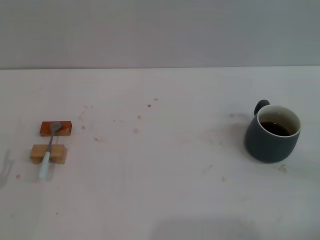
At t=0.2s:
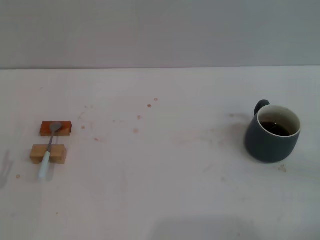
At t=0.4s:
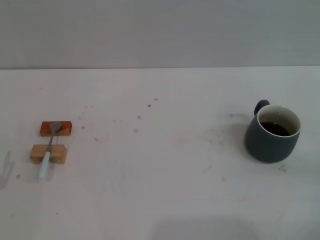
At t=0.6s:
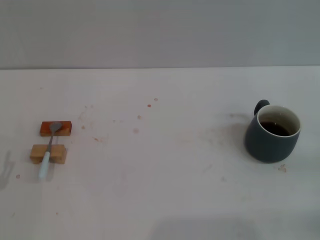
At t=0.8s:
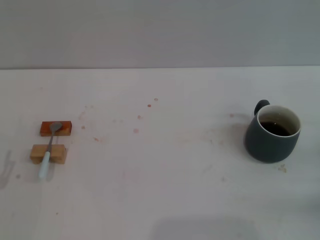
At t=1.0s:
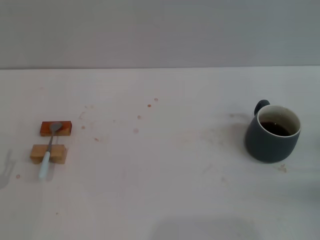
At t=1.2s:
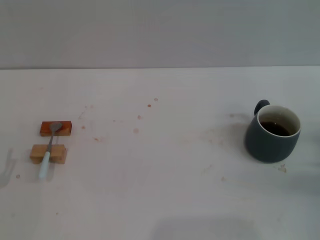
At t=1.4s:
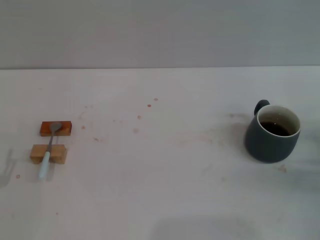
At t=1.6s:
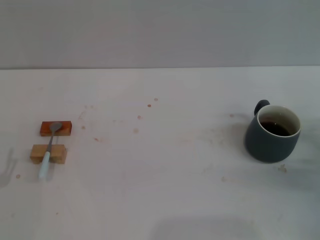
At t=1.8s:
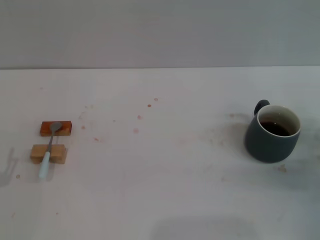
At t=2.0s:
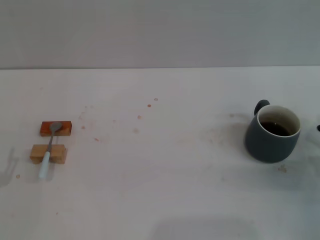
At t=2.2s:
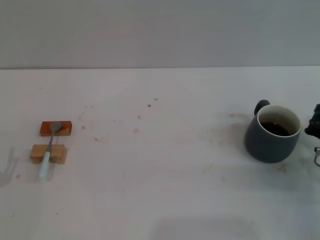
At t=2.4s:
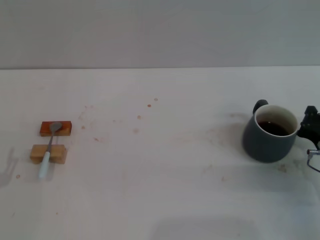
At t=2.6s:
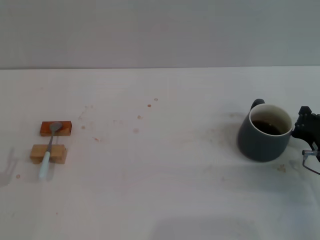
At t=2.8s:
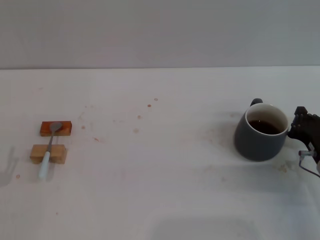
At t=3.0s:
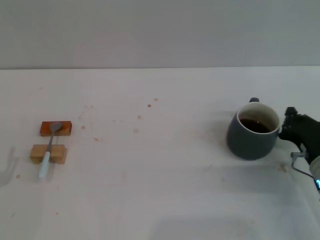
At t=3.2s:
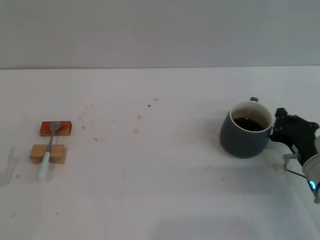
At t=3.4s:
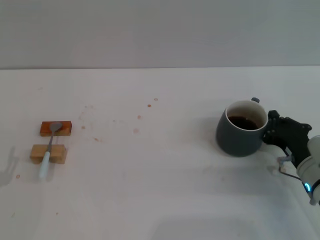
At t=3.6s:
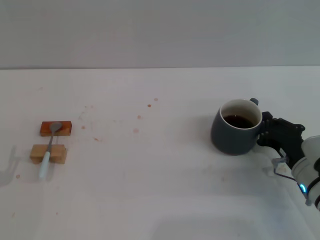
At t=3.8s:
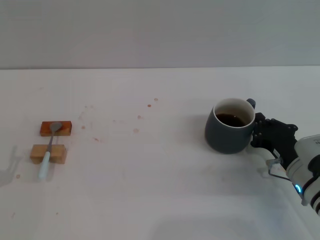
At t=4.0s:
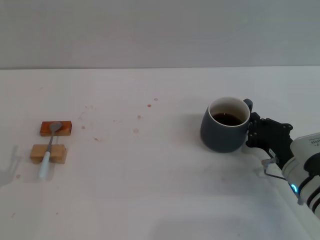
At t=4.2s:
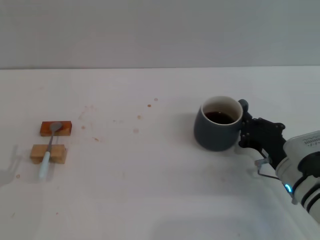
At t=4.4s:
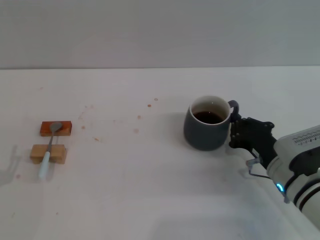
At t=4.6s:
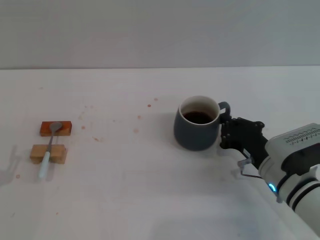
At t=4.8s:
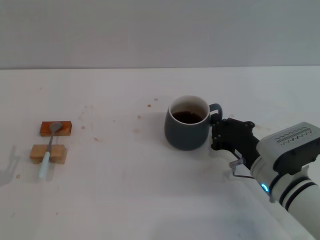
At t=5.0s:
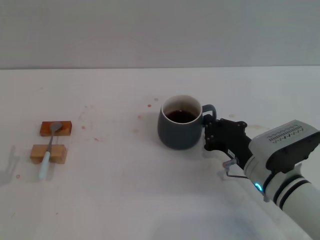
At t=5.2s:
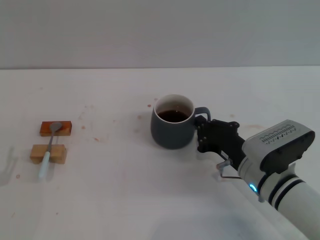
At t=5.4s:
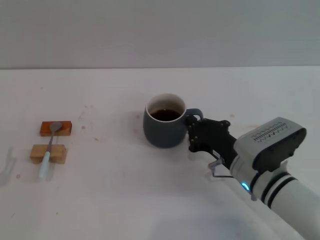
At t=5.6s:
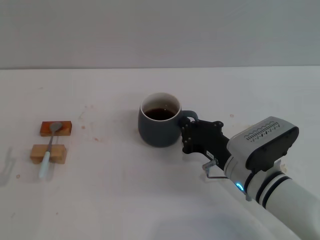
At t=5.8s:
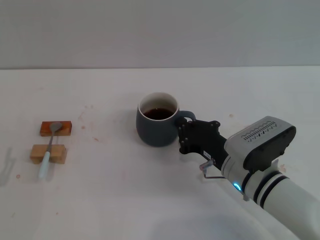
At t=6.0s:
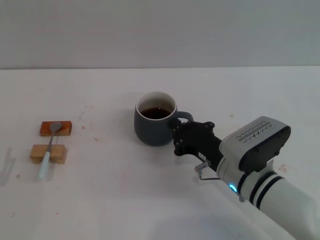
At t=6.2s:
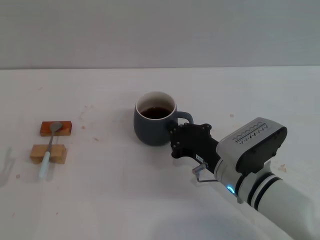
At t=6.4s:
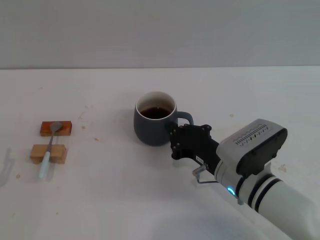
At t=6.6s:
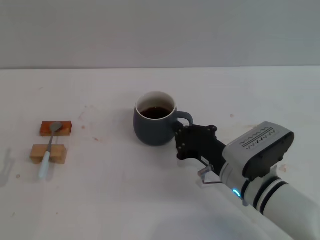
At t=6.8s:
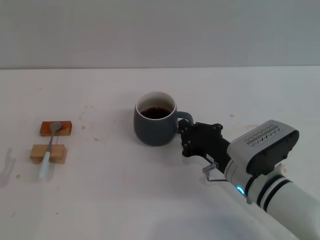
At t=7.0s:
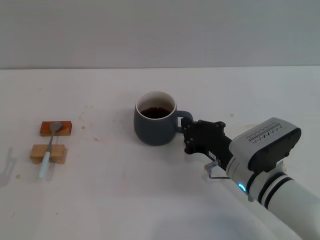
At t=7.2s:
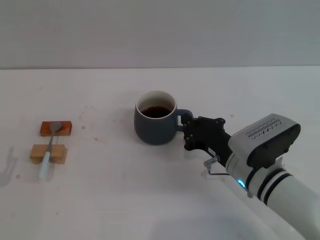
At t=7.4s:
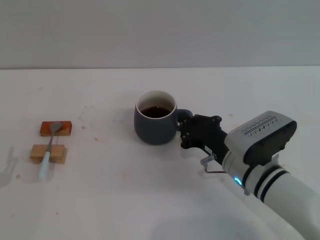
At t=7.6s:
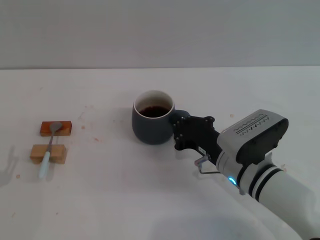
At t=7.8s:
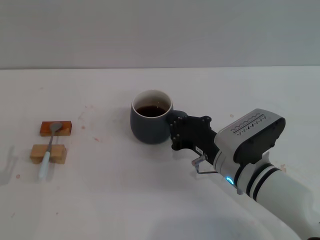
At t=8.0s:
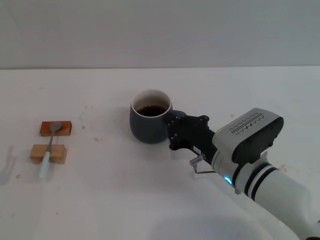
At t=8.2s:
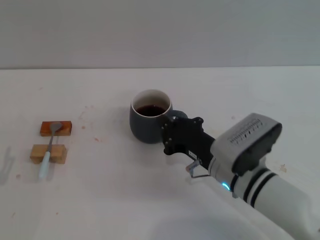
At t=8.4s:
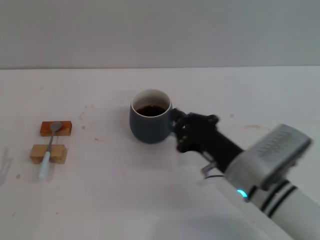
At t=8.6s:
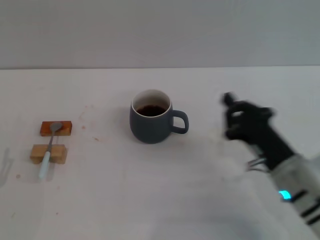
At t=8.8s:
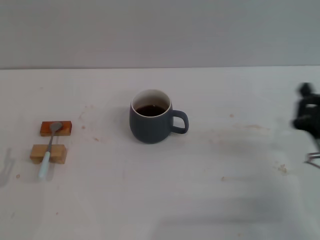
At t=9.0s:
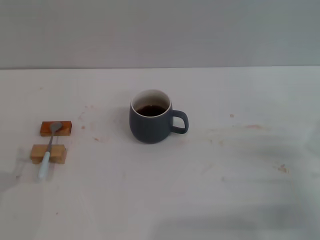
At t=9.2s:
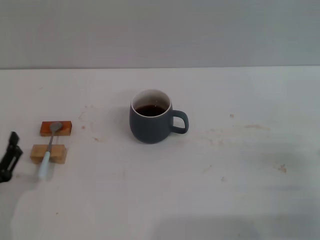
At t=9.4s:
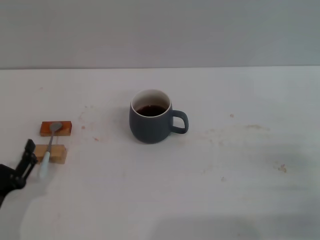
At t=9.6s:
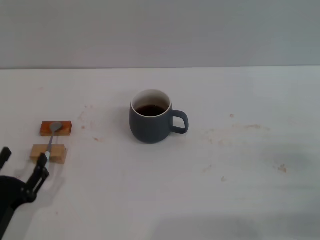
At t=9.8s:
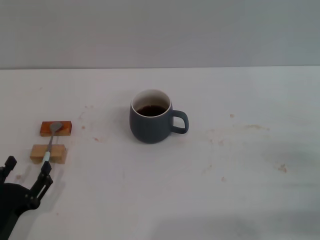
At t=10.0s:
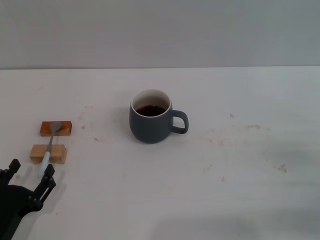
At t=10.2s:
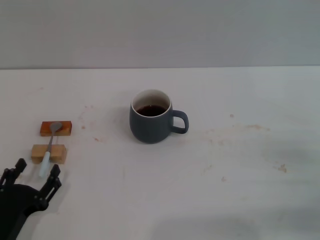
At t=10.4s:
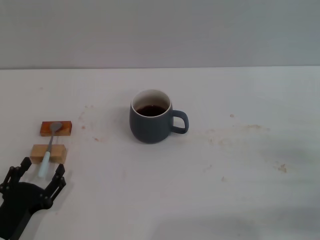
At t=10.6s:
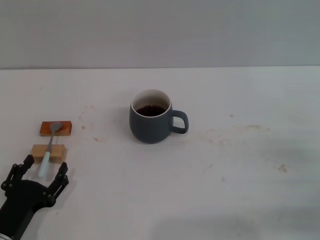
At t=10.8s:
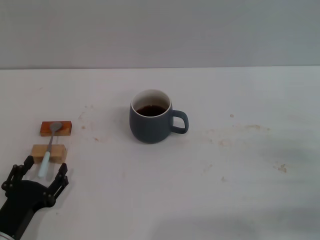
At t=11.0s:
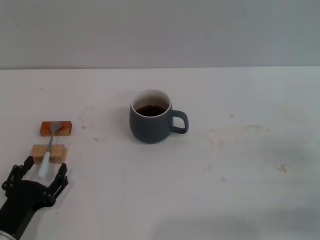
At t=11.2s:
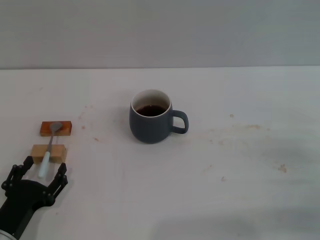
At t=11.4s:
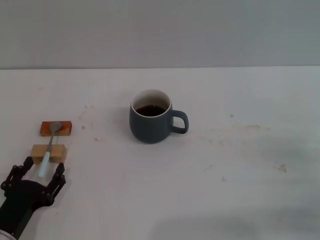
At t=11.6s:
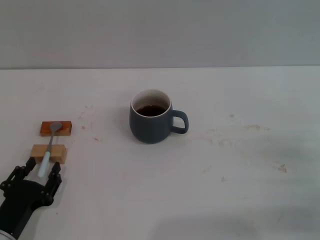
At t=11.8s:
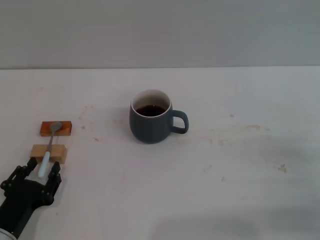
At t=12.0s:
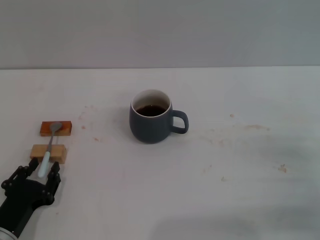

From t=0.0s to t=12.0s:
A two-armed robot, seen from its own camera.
Task of the whole recording: Move the grey cup to the center, lift the blue spoon, stir it three times in the cup, and put the spoon into the cup.
Step, from t=0.0s to t=8.4s: Move the cup with coffee to the center of view with the right gripper.
From t=0.0s to t=1.6s: The right gripper moves forward, some 10 cm.
From t=1.6s to t=3.0s: The right gripper travels to the left by roughly 5 cm.
From t=3.0s to t=4.4s: The right gripper shifts about 5 cm to the left.
From t=4.4s to t=6.0s: The right gripper shifts some 5 cm to the left.
From t=6.0s to t=7.6s: The grippers make only small movements.
From t=7.6s to t=9.0s: The right gripper shifts about 15 cm to the right.
From t=9.0s to t=10.4s: The left gripper changes place by approximately 5 cm.
From t=10.4s to t=12.0s: The grippers stay close to where they were, moving slightly.

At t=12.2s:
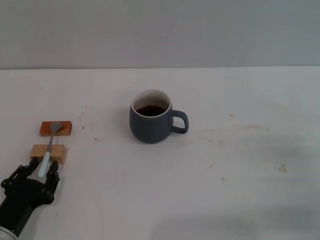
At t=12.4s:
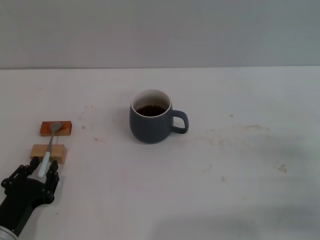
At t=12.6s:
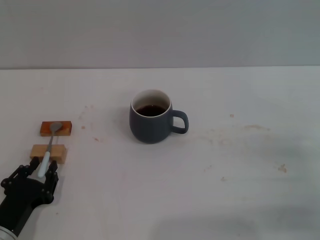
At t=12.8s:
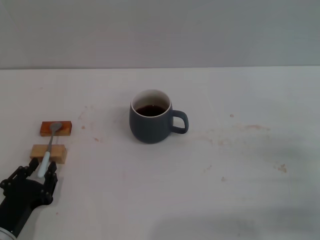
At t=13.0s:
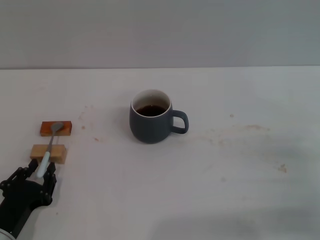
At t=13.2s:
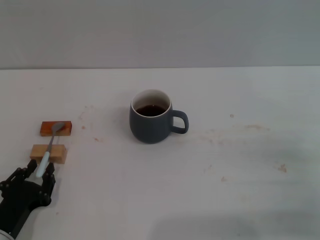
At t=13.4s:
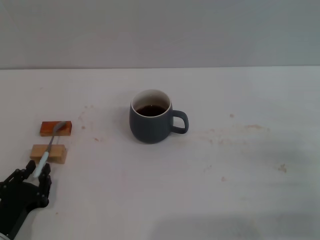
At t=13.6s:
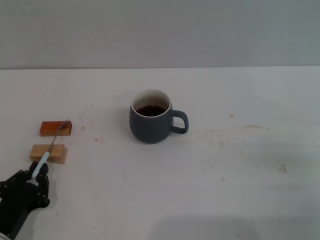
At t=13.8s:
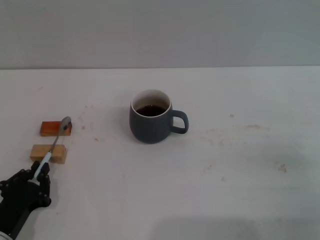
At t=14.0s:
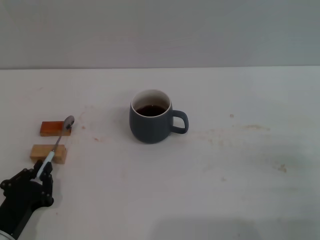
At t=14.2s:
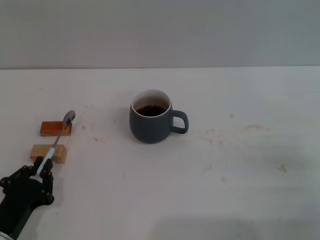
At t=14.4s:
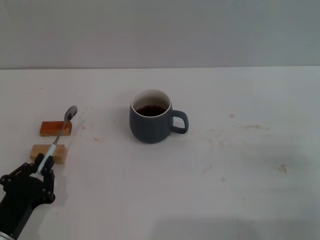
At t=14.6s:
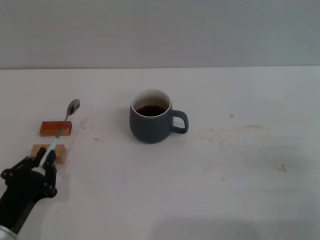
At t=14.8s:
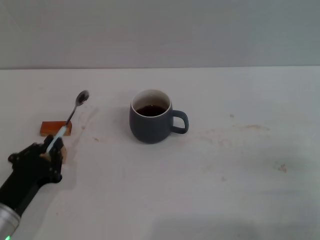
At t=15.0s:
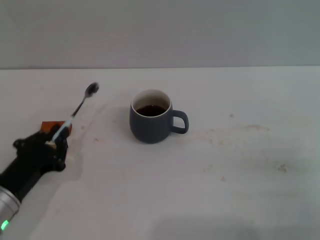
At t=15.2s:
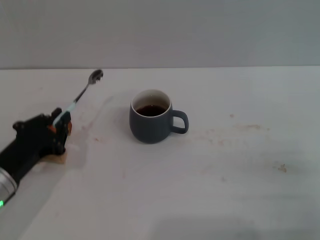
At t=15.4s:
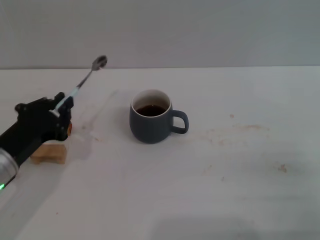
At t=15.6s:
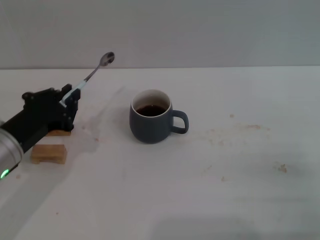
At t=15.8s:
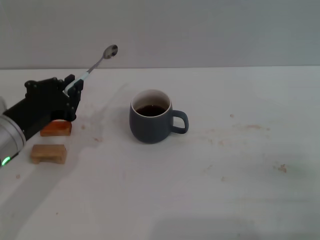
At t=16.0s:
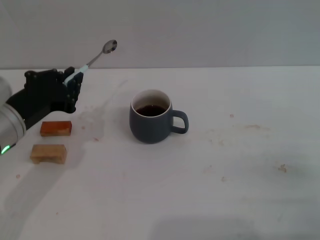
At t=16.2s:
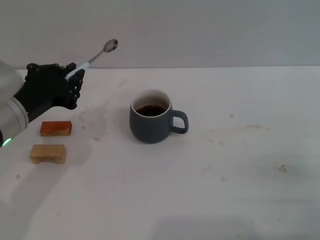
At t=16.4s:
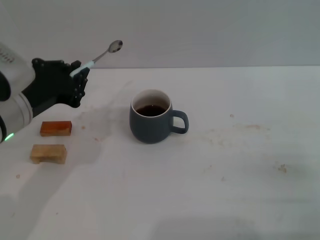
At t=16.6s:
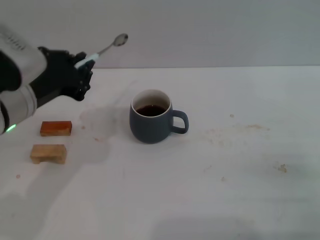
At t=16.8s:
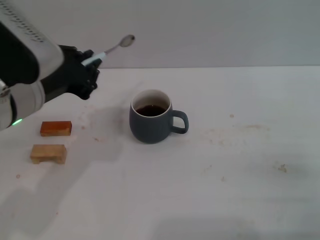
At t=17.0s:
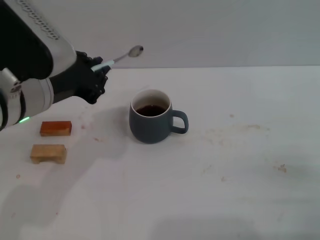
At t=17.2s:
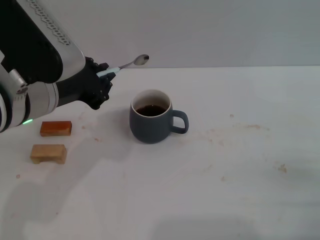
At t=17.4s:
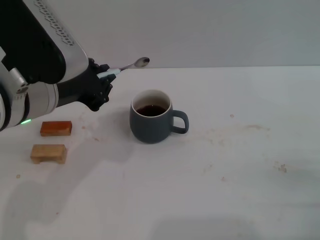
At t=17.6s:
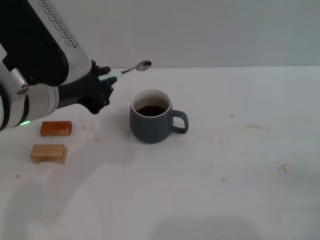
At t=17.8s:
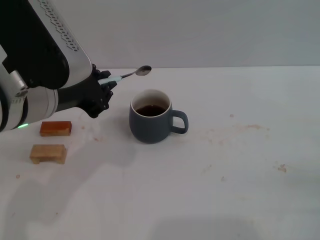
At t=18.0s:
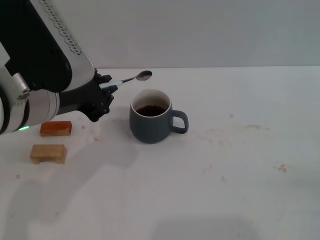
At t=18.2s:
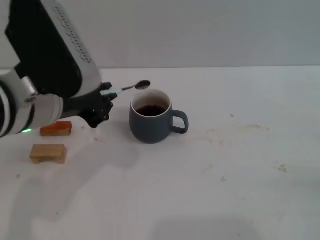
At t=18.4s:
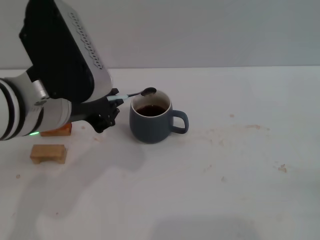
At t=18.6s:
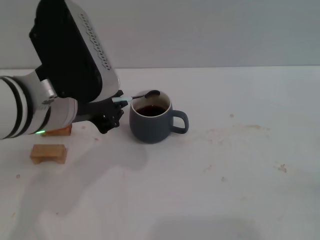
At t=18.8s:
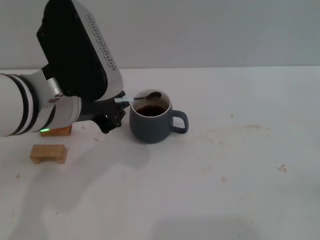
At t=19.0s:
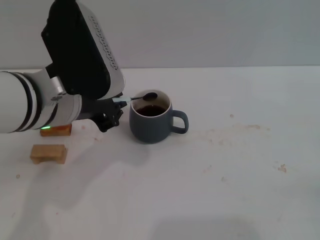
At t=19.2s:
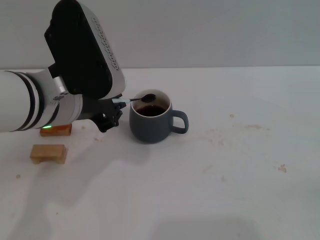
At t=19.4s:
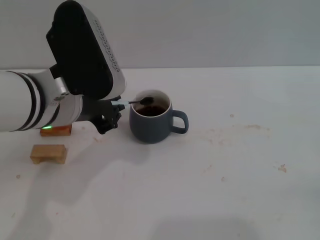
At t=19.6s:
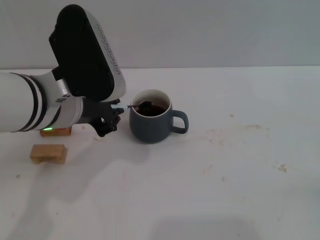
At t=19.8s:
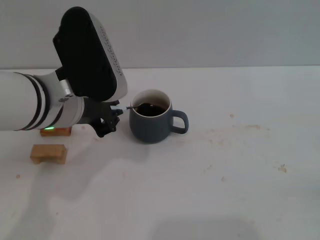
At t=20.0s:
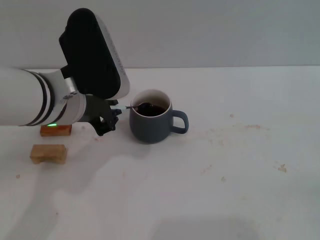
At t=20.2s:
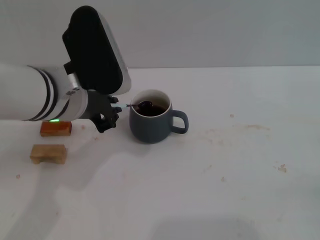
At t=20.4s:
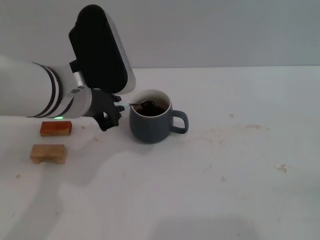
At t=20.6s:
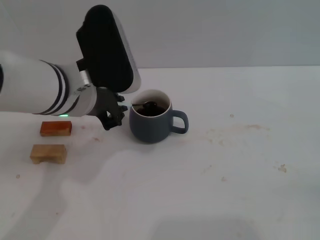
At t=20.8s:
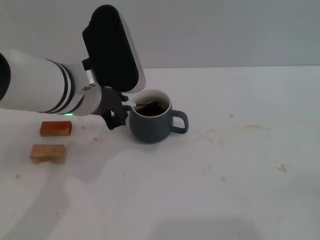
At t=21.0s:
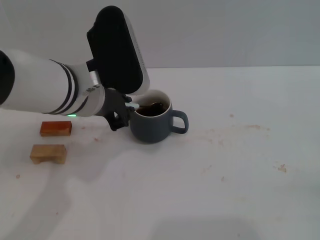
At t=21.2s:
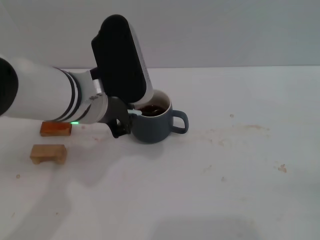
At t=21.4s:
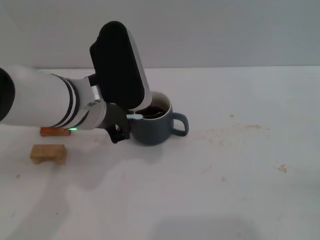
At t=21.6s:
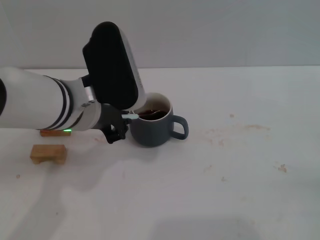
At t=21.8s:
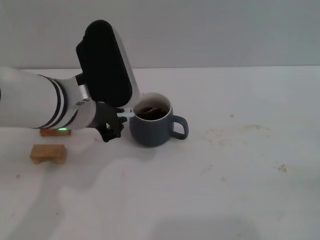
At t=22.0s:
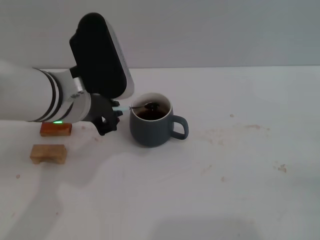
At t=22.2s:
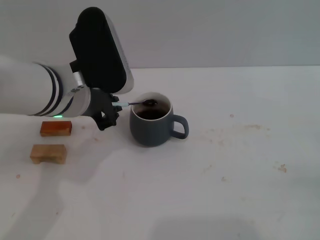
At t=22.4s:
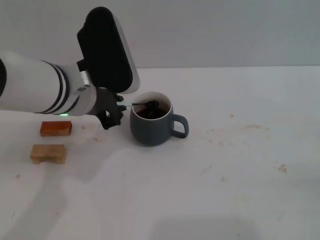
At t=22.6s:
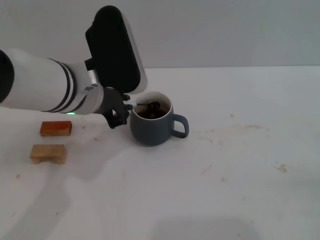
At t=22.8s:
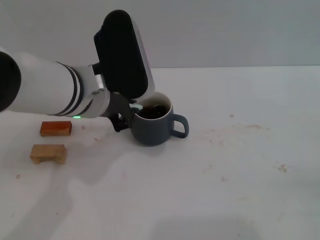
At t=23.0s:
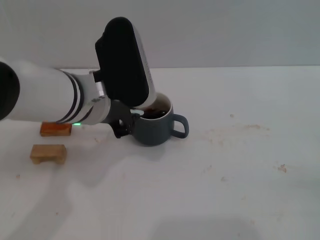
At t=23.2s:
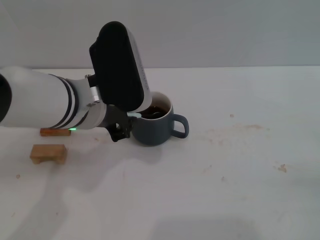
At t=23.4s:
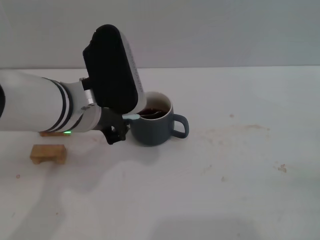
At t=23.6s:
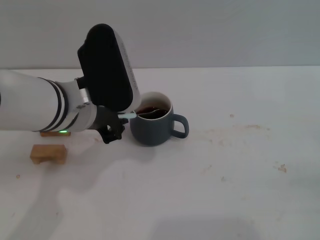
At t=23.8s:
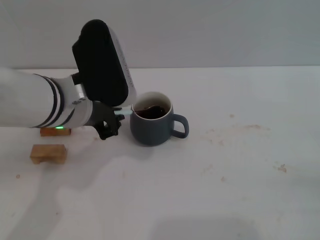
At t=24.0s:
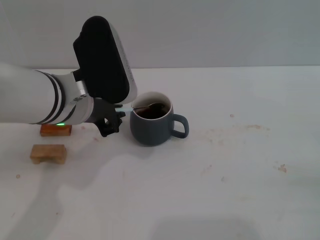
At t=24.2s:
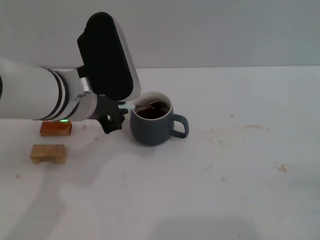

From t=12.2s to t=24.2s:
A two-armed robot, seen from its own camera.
Task of the whole recording: Move the grey cup to the center, lift the blue spoon, stir it three times in the cup, and put the spoon into the cup.
Step, from t=12.2s to t=15.2s: Pick up the spoon with the left gripper.
From t=12.2s to t=13.8s: The left gripper closes up.
From t=13.8s to t=15.2s: The left gripper travels upward and forward by some 10 cm.
From t=15.2s to t=16.6s: The left gripper heads upward and to the right, covering about 15 cm.
From t=16.6s to t=18.2s: The left gripper moves about 5 cm.
From t=18.2s to t=19.8s: The grippers stay close to where they were, moving slightly.
From t=19.8s to t=24.2s: The grippers make only small movements.
